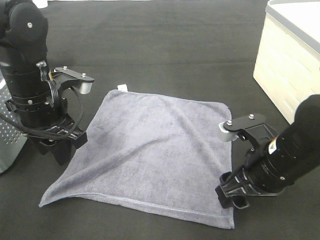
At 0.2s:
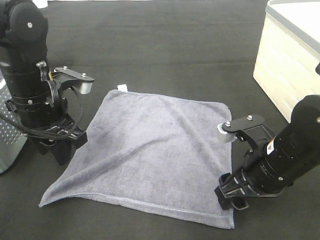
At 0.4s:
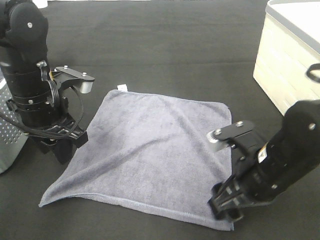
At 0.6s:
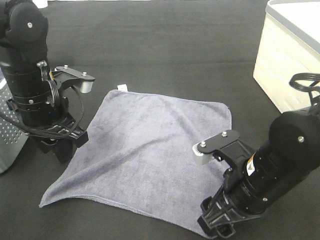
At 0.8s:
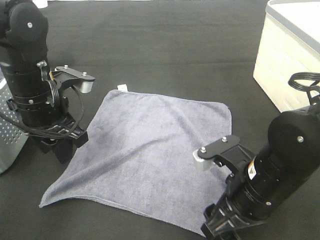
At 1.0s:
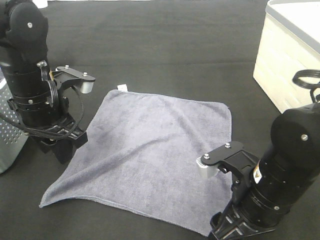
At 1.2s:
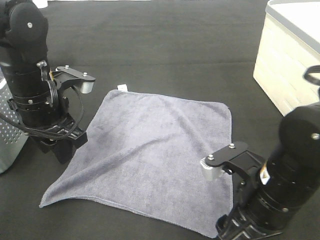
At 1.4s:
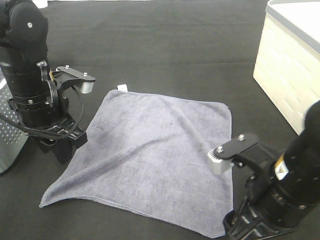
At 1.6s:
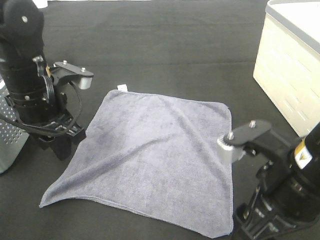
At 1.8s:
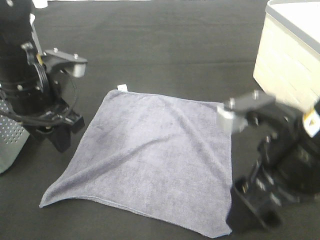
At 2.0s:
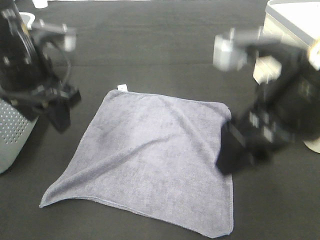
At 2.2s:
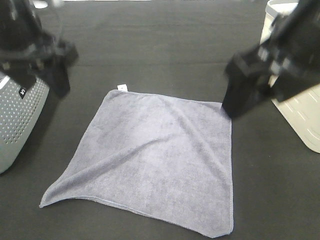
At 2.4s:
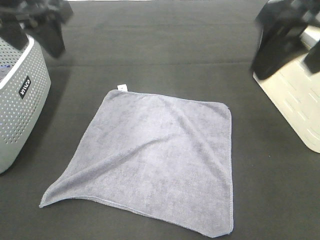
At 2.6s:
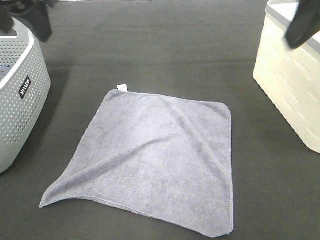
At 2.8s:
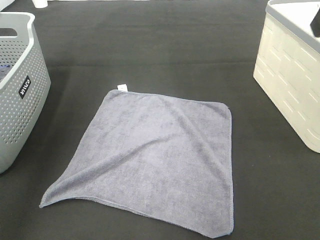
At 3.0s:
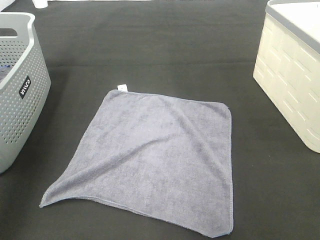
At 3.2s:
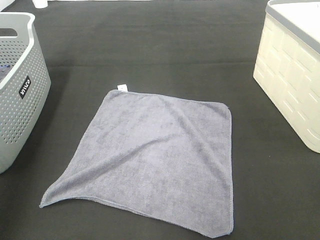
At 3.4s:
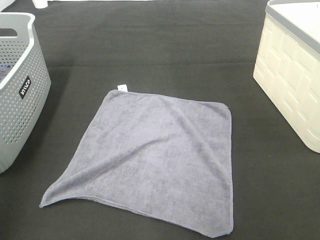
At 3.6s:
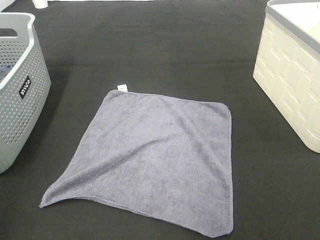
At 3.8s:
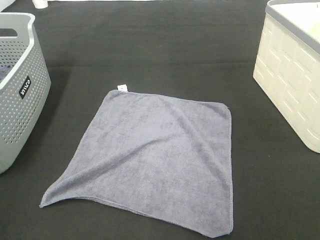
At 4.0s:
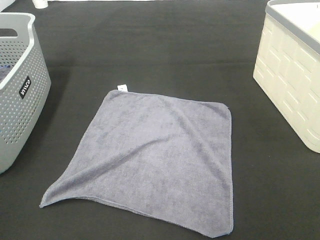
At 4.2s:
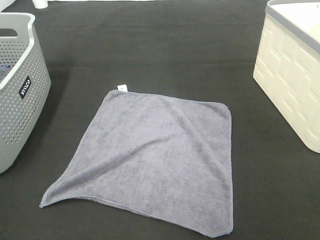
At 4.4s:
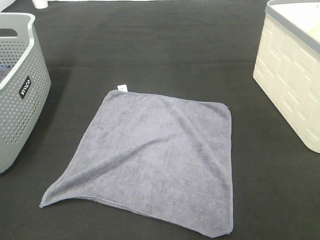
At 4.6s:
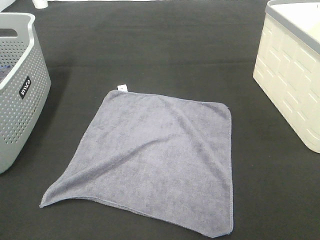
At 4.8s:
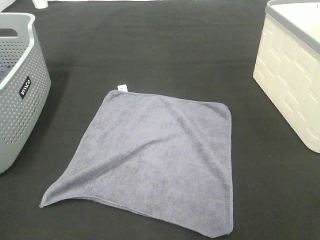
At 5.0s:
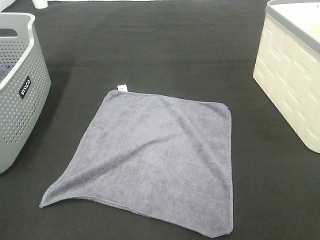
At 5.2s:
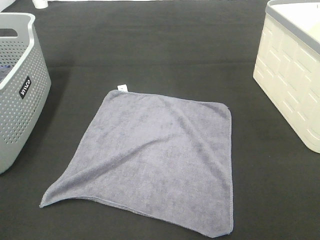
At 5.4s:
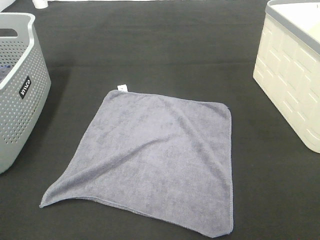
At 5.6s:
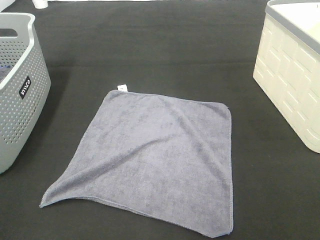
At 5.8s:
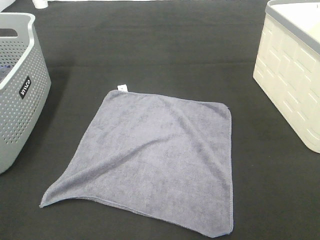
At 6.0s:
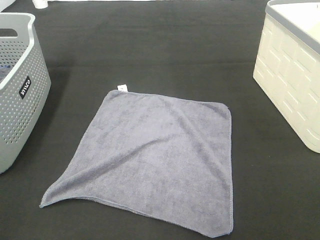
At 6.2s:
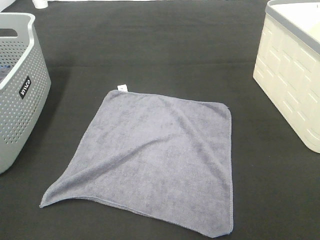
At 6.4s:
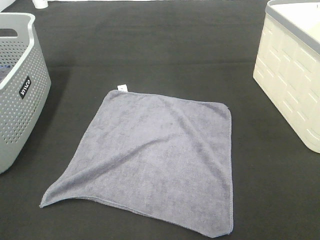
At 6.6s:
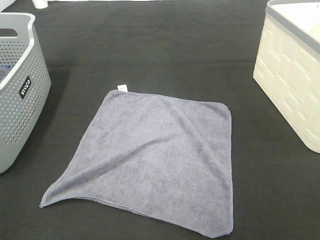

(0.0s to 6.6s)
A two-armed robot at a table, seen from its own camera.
Task of the whole recording: Remove the towel and place it.
0.0s - 1.6s: The right gripper heads upward and backward, covering roughly 10 cm.
1.6s - 3.2s: The left gripper goes approximately 30 cm upward, to the left and backward. The right gripper shifts some 25 cm upward and to the right.
5.0s - 6.6s: Both grippers stay put.

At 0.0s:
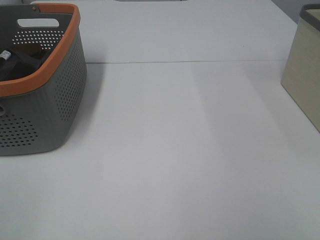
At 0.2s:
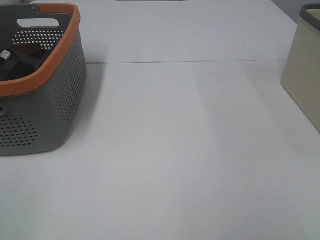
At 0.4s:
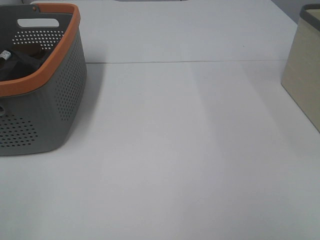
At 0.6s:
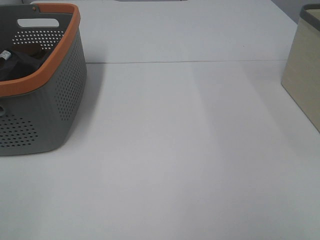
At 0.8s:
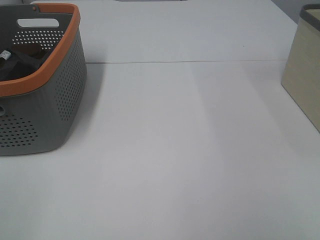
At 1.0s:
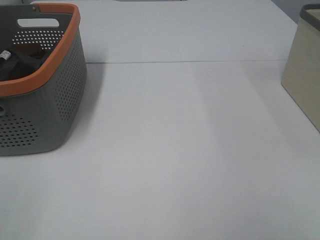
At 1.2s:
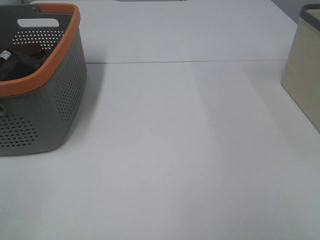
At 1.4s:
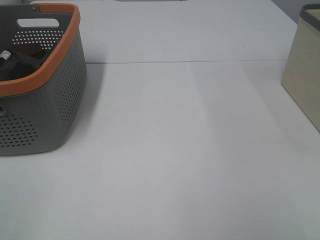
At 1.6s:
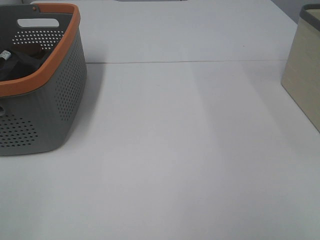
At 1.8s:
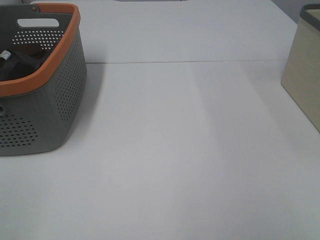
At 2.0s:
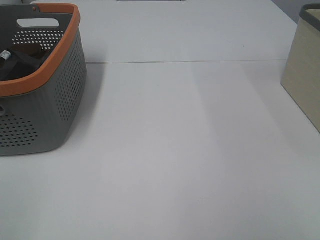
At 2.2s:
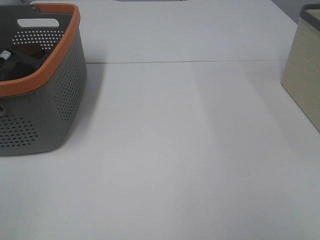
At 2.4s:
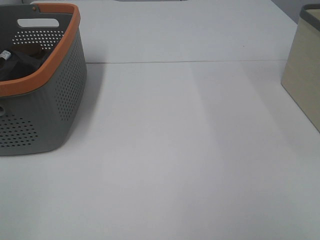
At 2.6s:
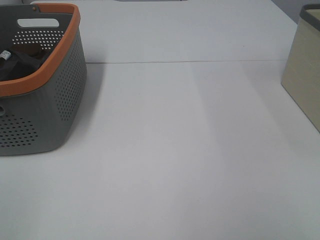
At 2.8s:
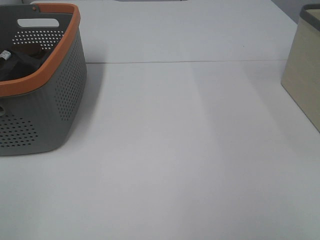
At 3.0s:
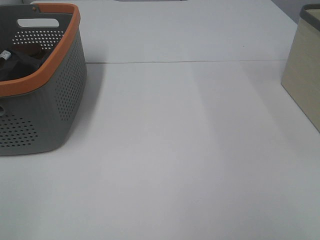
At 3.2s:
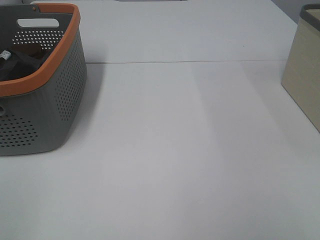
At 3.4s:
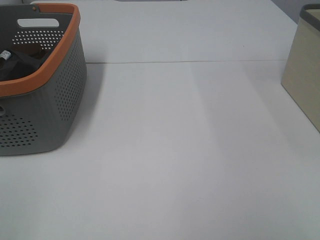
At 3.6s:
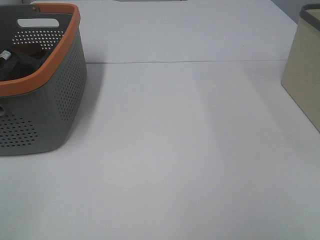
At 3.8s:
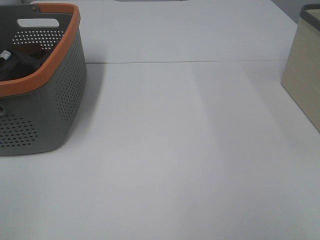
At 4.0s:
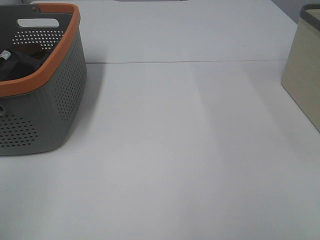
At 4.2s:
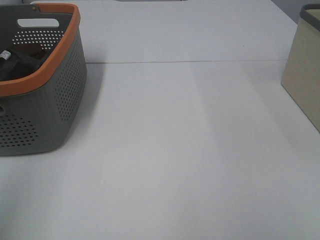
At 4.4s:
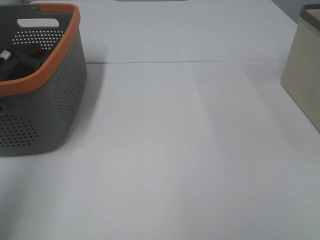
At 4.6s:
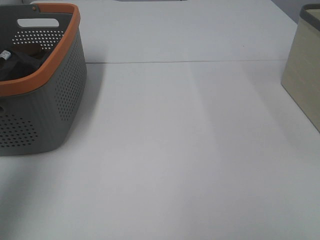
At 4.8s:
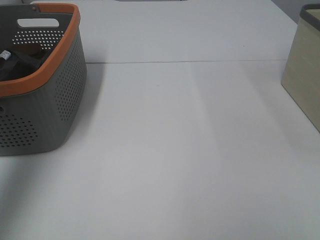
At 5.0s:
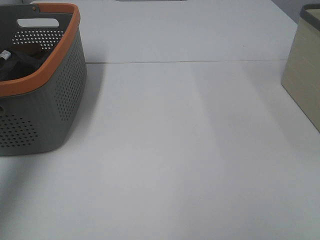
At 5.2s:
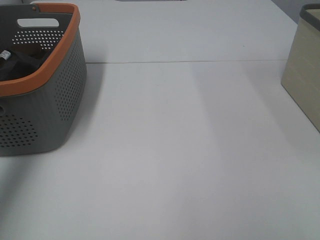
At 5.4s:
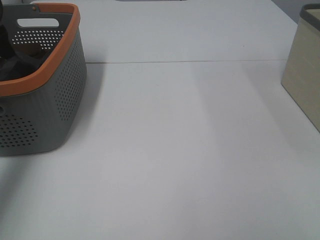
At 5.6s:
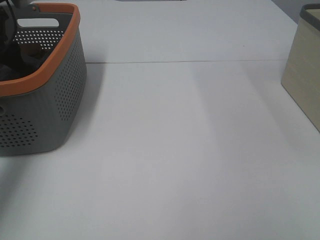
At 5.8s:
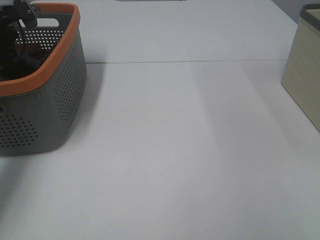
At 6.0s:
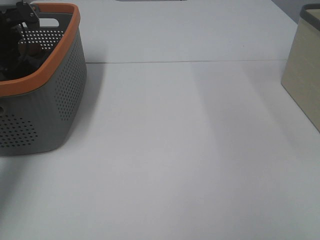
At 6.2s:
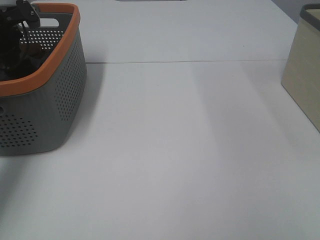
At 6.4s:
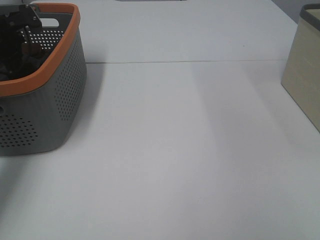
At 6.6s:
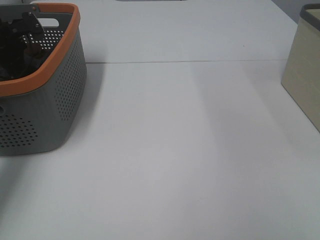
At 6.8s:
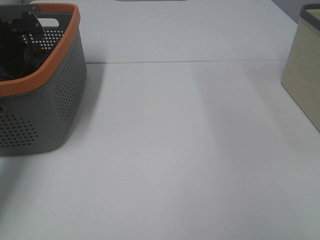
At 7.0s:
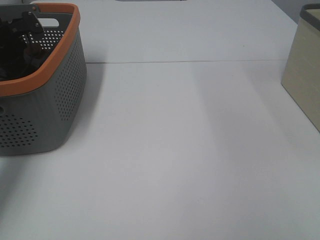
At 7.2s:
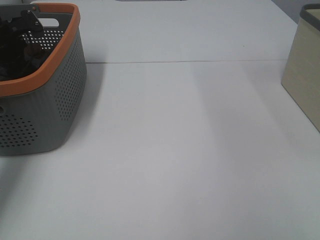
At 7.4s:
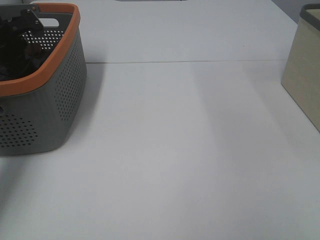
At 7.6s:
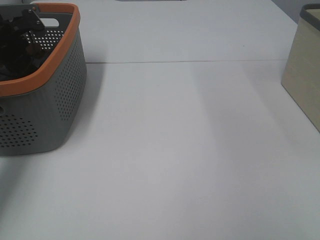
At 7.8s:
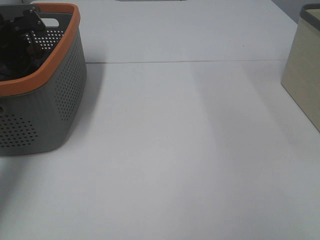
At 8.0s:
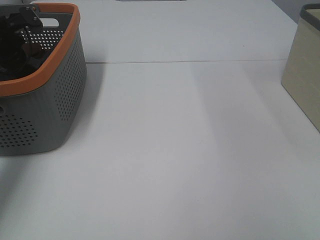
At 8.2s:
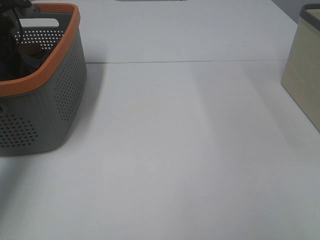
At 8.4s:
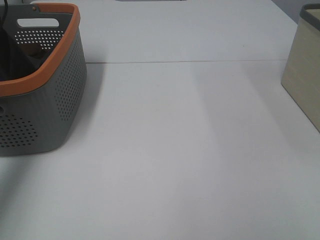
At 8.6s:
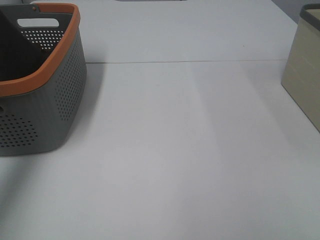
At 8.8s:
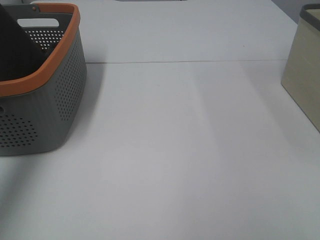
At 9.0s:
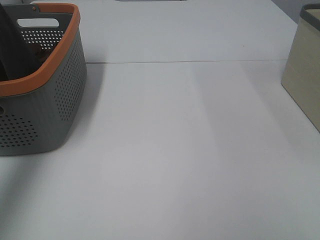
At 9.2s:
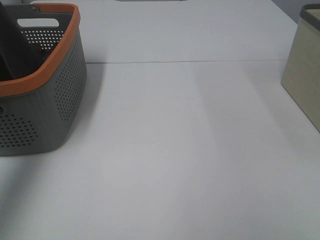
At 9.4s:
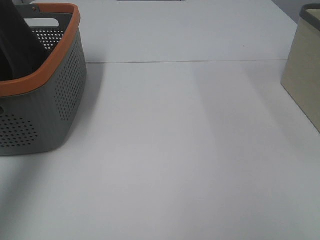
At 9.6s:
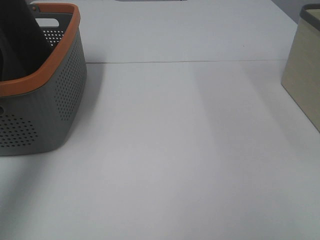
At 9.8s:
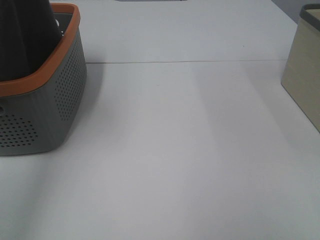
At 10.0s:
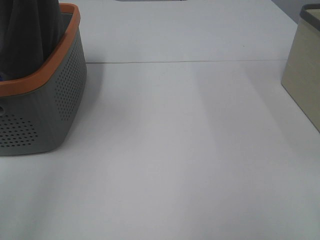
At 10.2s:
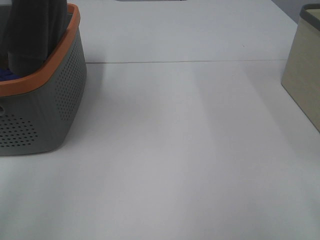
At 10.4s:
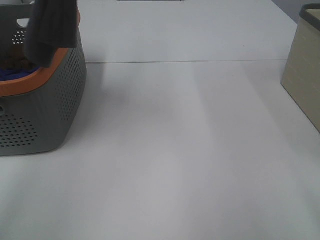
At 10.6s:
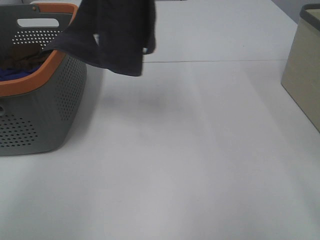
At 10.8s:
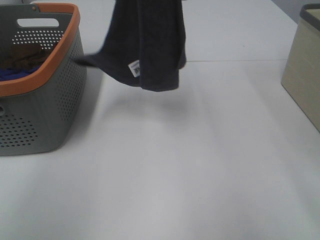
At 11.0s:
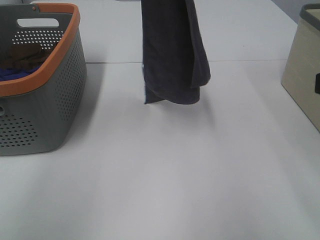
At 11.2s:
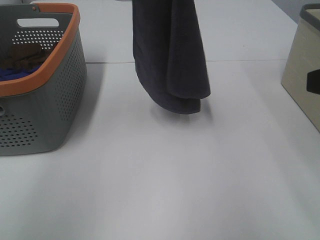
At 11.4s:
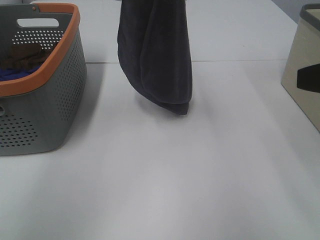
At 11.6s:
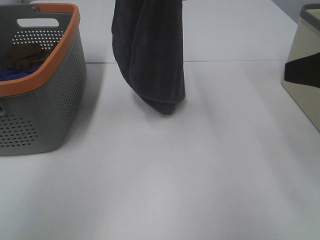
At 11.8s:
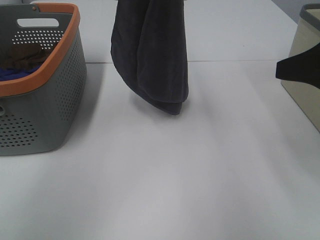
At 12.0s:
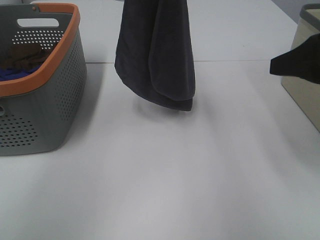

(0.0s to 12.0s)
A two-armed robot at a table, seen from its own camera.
Task of the whole recording: Remove the towel and place it.
0.0s - 3.0s: The two grippers keep their place.
3.0s - 4.4s: The left gripper shifts approximately 20 cm forward and upward.
4.4s - 6.0s: The left gripper is displaced forward and downward by about 40 cm.
7.6s - 9.0s: The left gripper travels upward and backward by approximately 30 cm.
9.0s - 10.4s: The left gripper moves to the right and upward, roughly 20 cm; the right gripper moves forward, roughly 10 cm.
10.4s - 12.0s: The left gripper is displaced downward and to the right by approximately 15 cm. The right gripper goes approximately 15 cm forward.

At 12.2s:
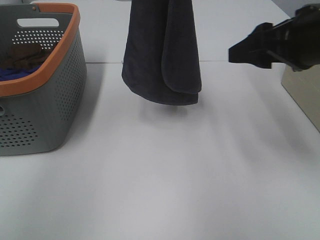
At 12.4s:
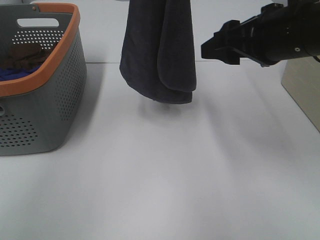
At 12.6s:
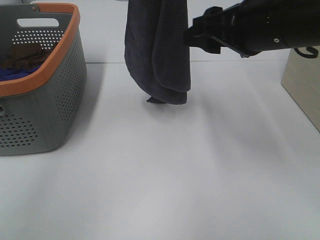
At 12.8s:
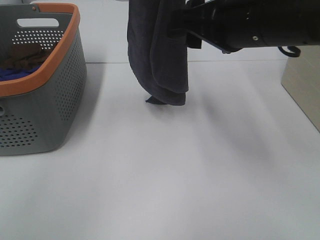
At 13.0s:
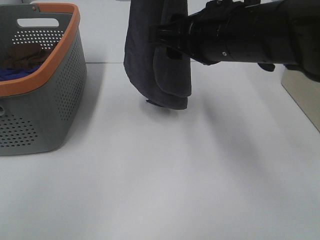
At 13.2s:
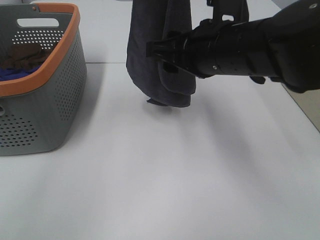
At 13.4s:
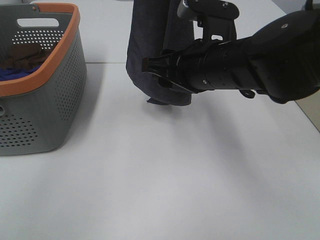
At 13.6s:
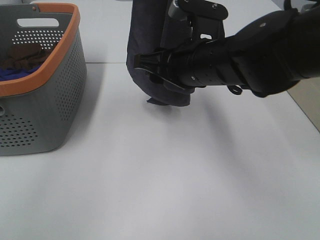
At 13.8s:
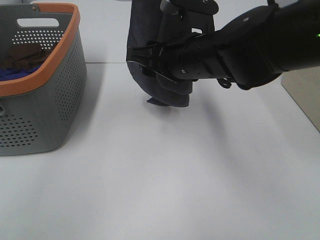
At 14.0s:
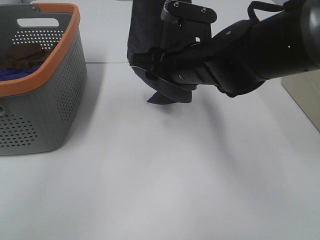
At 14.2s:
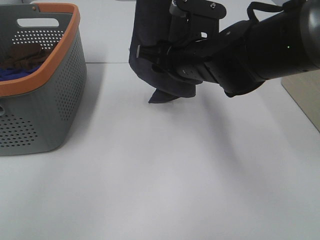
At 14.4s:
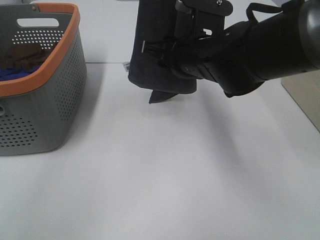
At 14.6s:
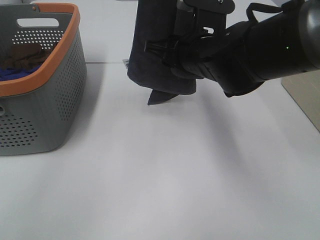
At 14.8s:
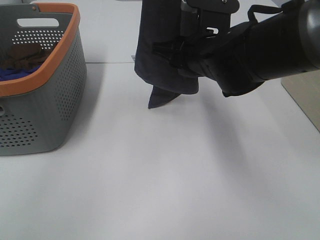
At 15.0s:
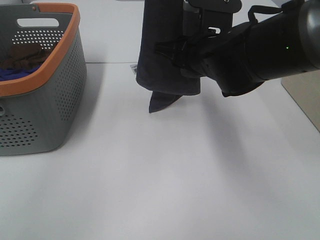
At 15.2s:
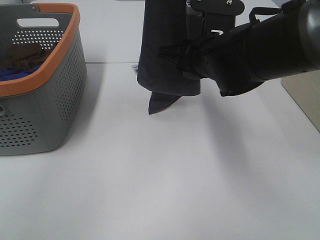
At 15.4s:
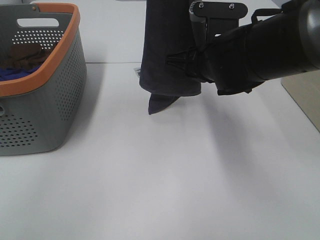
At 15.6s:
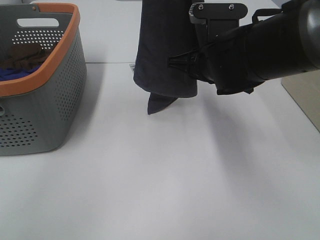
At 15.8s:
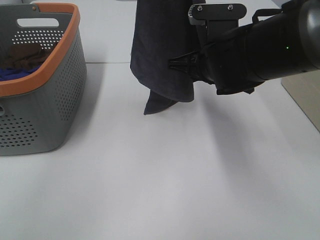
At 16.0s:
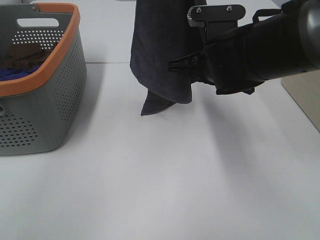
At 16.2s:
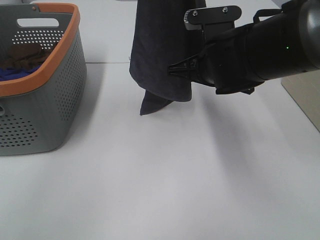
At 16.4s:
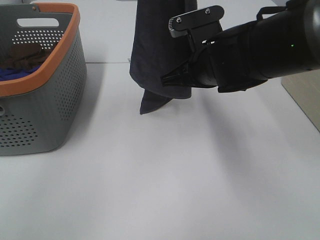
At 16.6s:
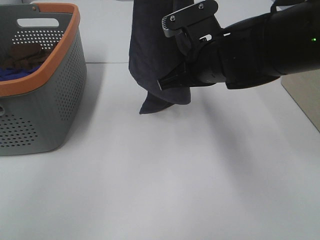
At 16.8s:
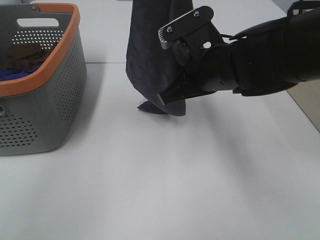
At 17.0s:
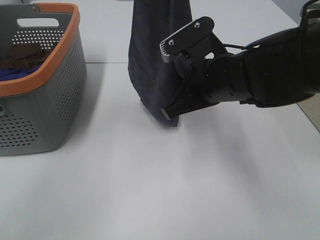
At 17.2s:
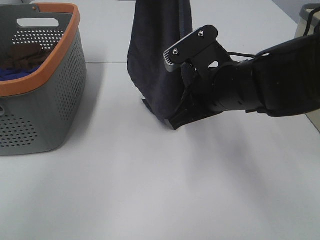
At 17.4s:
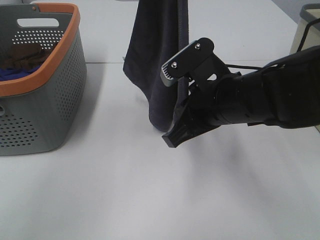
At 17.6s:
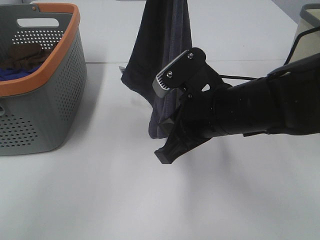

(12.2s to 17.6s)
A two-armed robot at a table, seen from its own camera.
Task of the whole recording: Remove the towel and place it.
Step, 12.2s - 16.4s: Right hand: grab a corner of the grey towel and straighten it.
12.2s - 13.6s: The right gripper is displaced to the left and downward by about 15 cm.
15.0s - 16.2s: The right gripper closes.
16.2s - 17.6s: The right gripper heads backward, covering approximately 10 cm.
